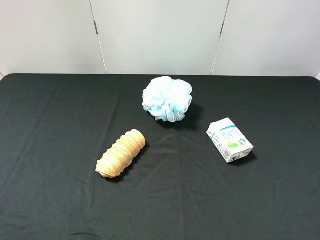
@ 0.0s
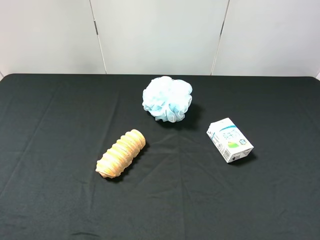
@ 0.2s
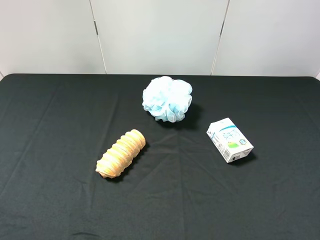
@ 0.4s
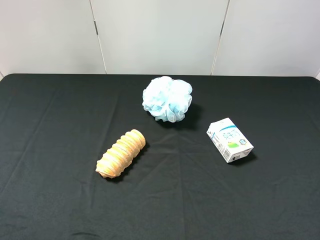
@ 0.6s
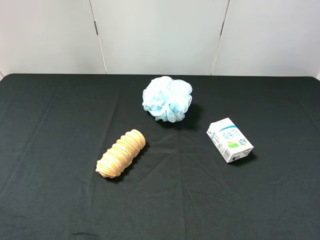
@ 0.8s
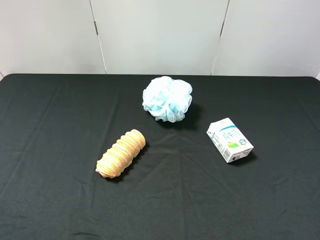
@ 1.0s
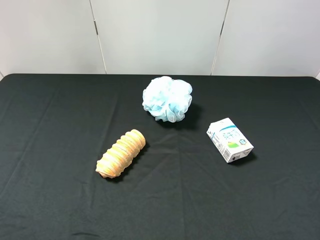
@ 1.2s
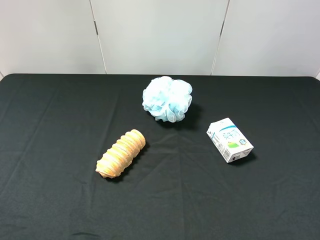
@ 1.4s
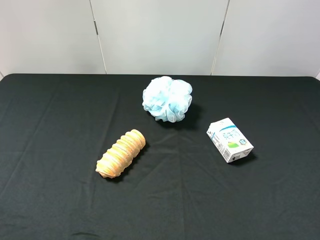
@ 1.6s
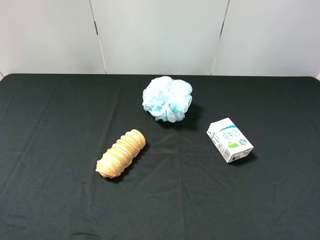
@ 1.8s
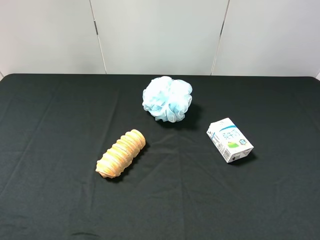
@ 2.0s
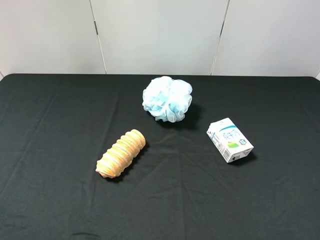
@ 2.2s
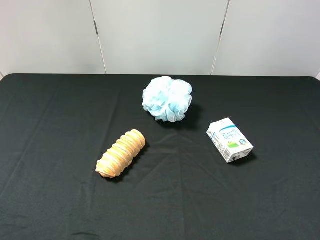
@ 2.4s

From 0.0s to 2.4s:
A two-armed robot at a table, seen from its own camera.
Task of the whole recording: use the left gripper to pick up the item and transfer it from the left gripper to the right gripper.
From 1.2s to 2.4s: Neither gripper changes place.
